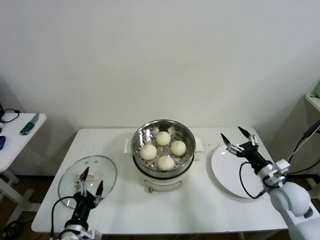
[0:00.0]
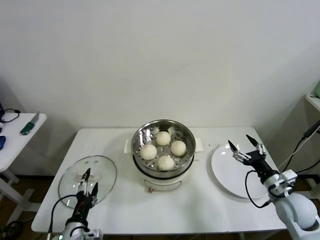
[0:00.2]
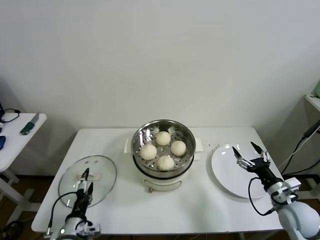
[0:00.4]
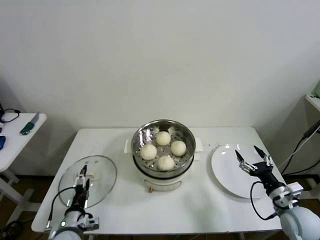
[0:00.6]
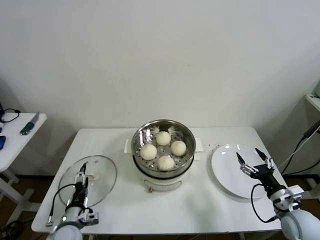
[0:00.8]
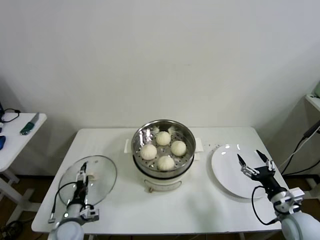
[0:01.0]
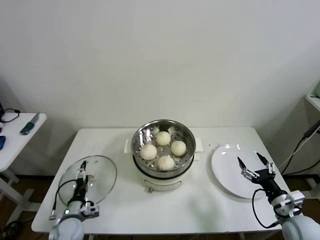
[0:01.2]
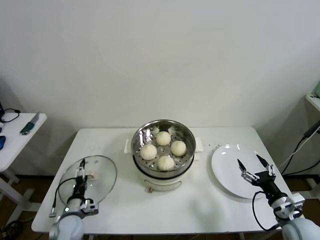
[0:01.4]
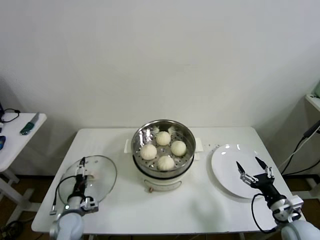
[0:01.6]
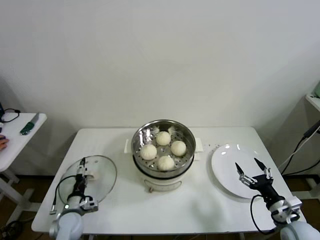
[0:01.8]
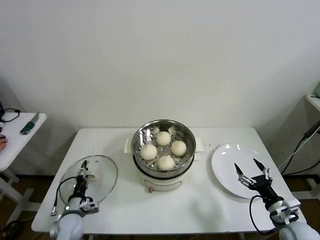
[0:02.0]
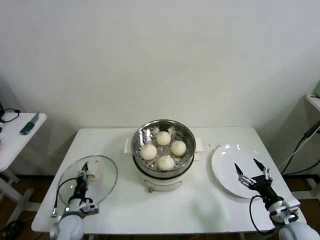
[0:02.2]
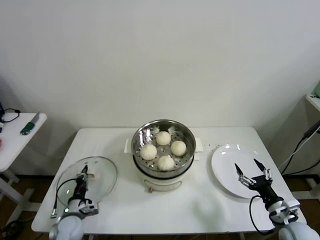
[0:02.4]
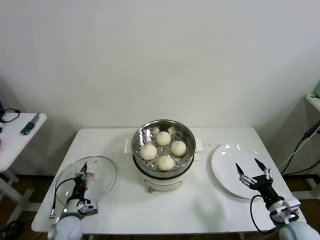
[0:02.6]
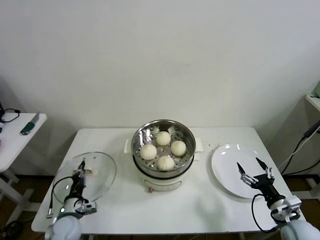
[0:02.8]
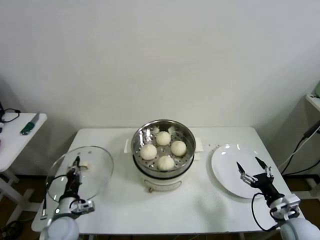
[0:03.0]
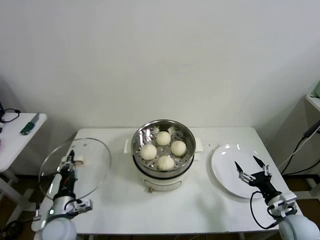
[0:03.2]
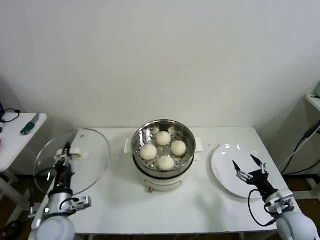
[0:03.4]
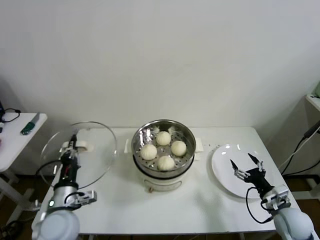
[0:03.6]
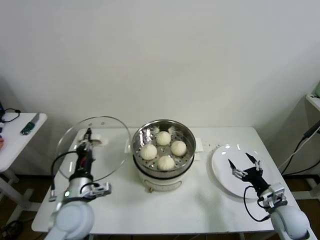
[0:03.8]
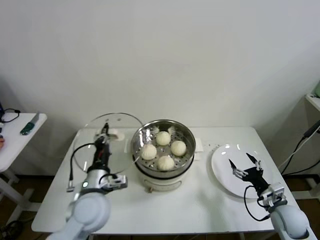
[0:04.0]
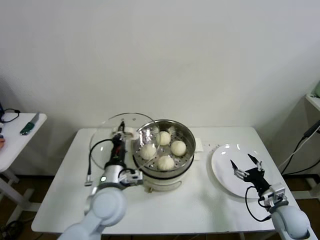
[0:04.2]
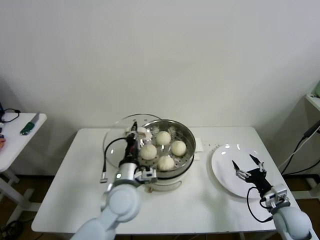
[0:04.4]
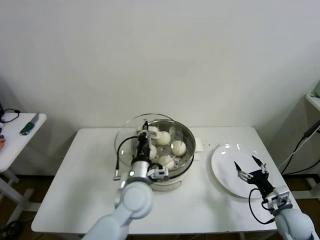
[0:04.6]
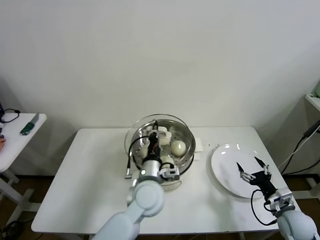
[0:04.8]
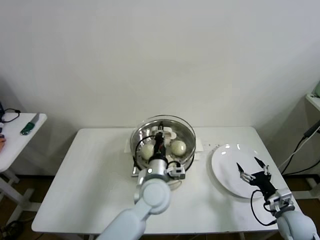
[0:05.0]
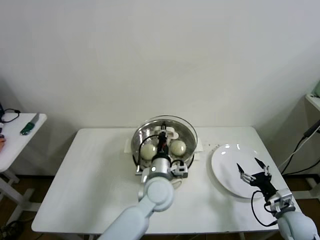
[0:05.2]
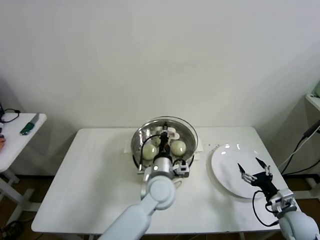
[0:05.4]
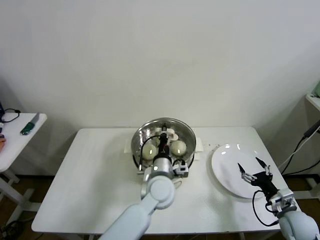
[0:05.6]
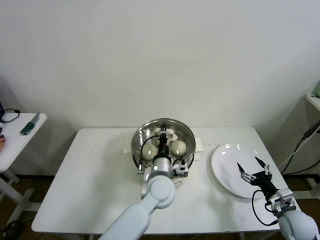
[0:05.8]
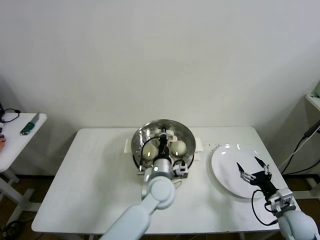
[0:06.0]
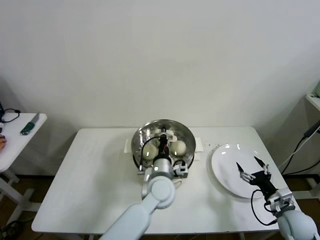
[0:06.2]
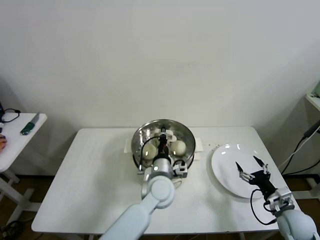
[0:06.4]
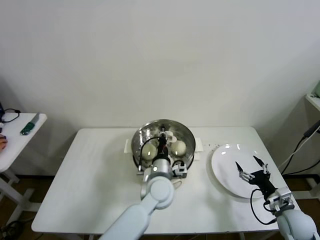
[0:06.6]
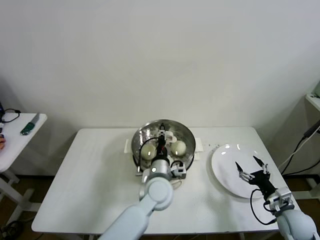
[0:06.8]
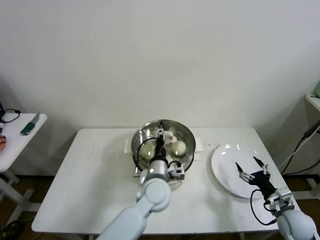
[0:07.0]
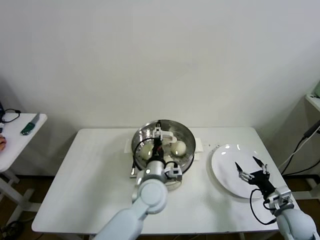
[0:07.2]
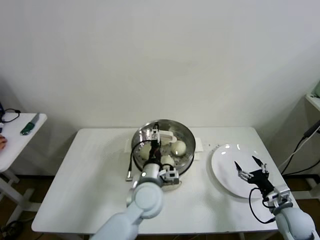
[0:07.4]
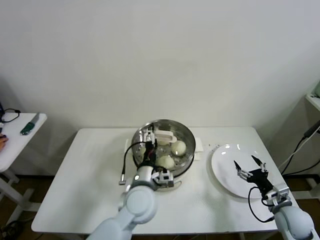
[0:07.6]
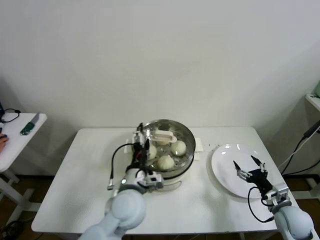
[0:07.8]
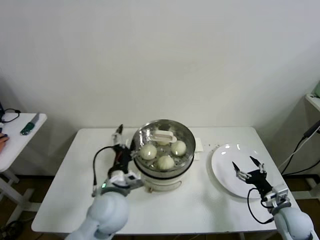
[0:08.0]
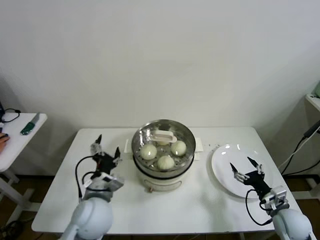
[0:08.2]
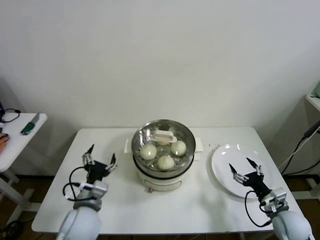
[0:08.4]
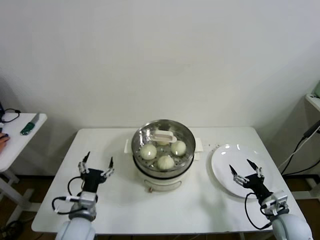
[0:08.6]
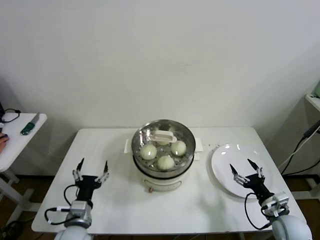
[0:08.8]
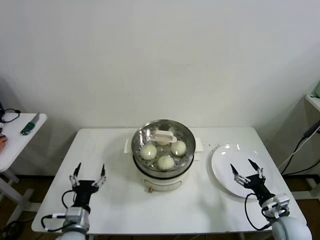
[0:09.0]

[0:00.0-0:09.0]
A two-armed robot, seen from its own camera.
Step, 0:00.0 to 0:02.2: Grasp the pot lid with left gripper.
Step, 0:02.6 to 0:06.4: Place the pot lid on the steamer with left gripper.
0:00.0 to 0:01.6: The right gripper travels backward and downward by some 10 cm. Meanwhile the left gripper travels forward, downward and to the left by roughly 20 cm.
0:01.6 to 0:03.0: The left gripper ends up some 5 cm from where it was, and closes up.
0:03.0 to 0:04.4: The left gripper goes approximately 25 cm to the right and upward.
0:04.4 to 0:06.0: The left gripper goes about 10 cm to the right.
0:06.0 to 0:07.6: The left gripper ends up approximately 5 cm from where it was, and opens.
0:07.6 to 0:09.0: The left gripper travels to the left, backward and downward by some 25 cm.

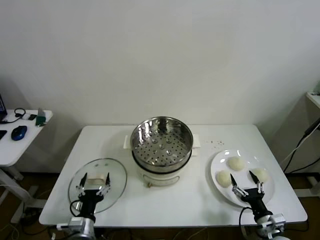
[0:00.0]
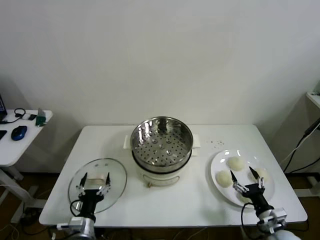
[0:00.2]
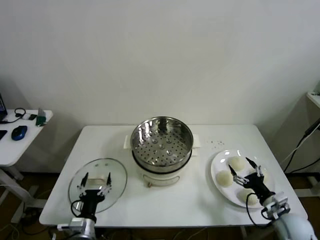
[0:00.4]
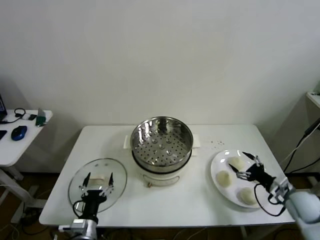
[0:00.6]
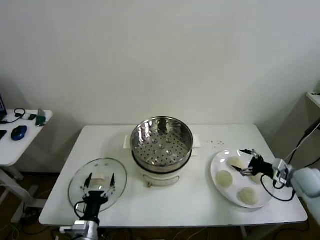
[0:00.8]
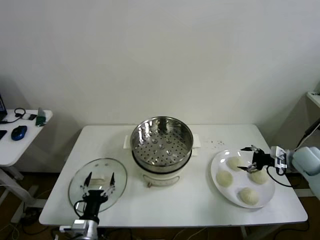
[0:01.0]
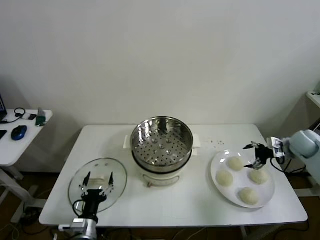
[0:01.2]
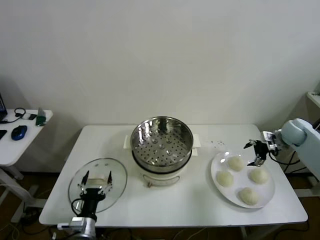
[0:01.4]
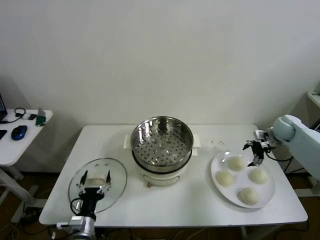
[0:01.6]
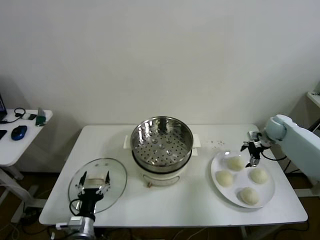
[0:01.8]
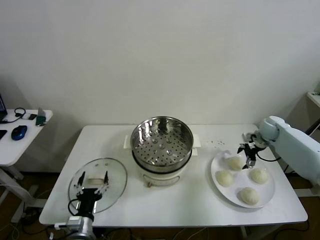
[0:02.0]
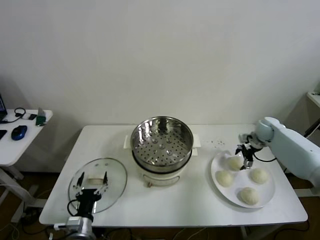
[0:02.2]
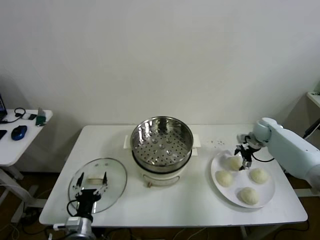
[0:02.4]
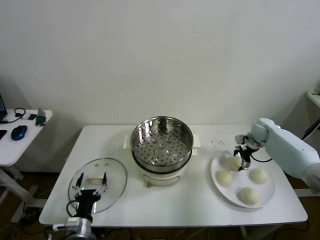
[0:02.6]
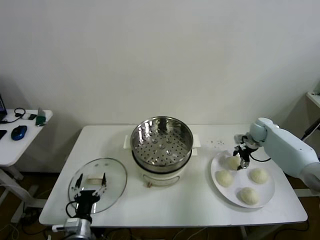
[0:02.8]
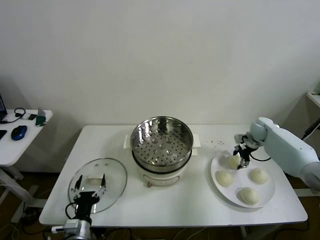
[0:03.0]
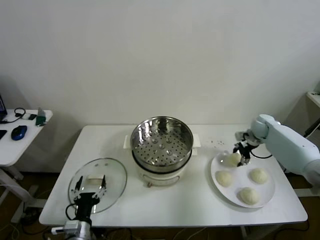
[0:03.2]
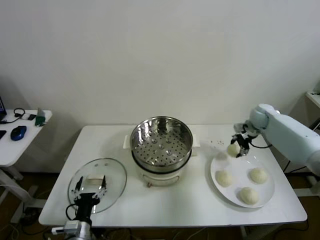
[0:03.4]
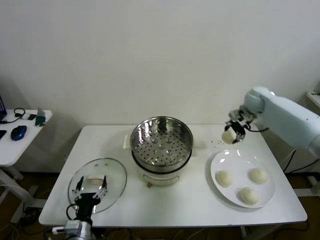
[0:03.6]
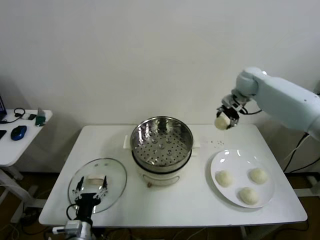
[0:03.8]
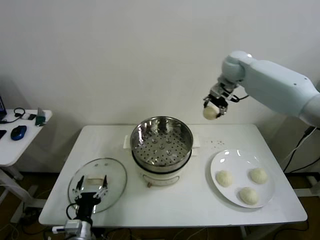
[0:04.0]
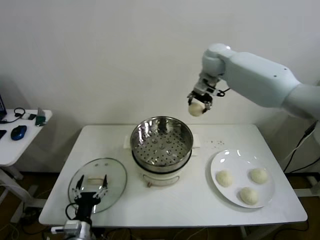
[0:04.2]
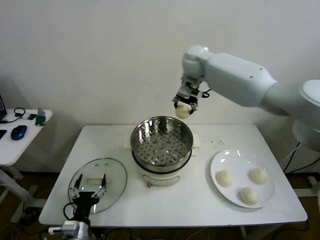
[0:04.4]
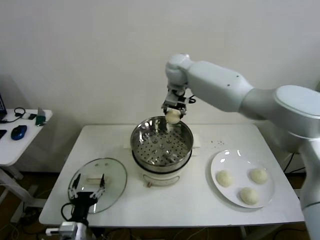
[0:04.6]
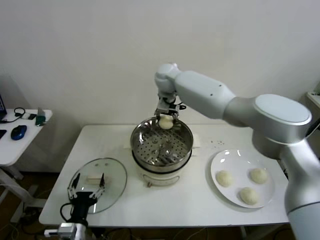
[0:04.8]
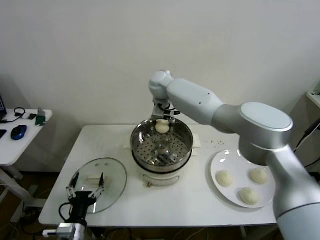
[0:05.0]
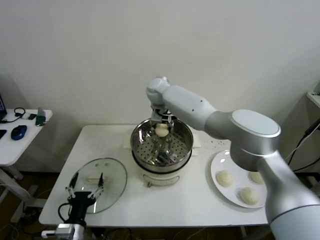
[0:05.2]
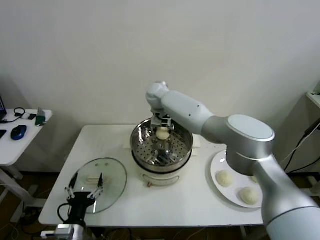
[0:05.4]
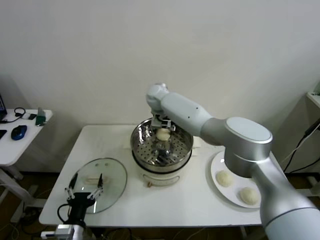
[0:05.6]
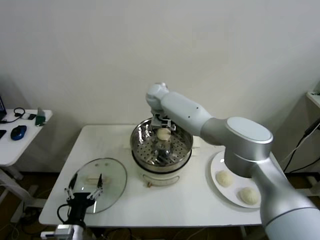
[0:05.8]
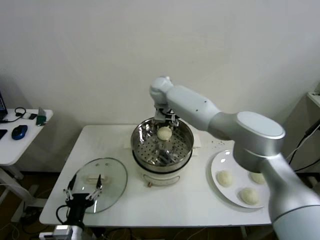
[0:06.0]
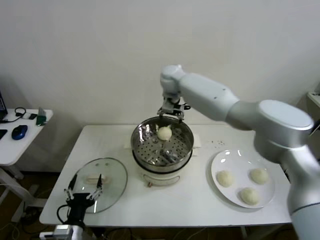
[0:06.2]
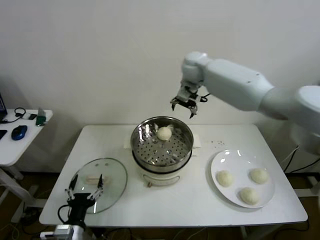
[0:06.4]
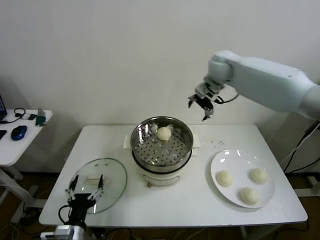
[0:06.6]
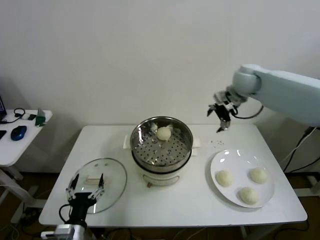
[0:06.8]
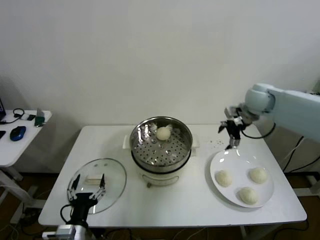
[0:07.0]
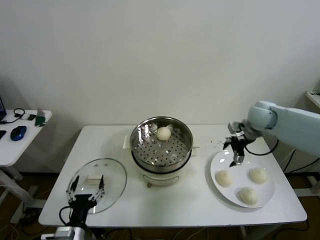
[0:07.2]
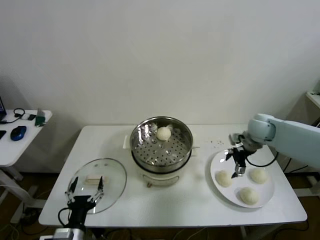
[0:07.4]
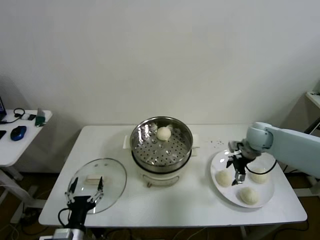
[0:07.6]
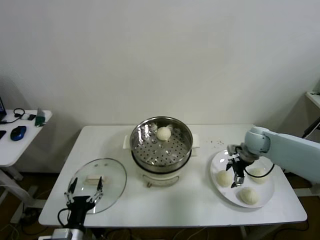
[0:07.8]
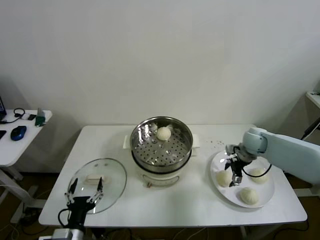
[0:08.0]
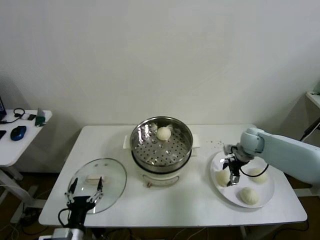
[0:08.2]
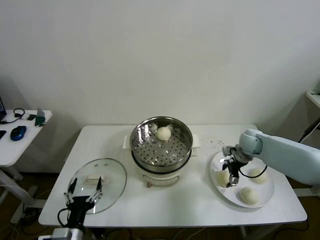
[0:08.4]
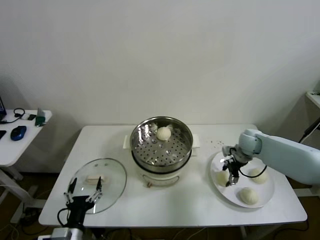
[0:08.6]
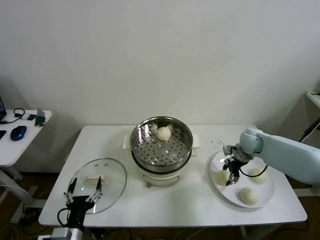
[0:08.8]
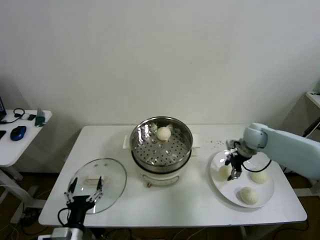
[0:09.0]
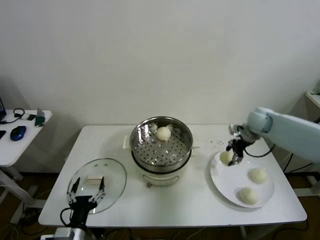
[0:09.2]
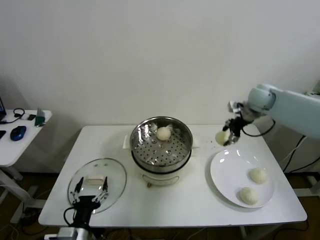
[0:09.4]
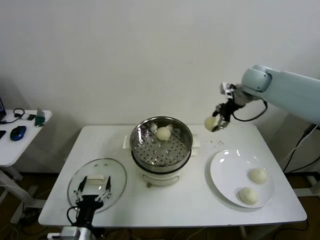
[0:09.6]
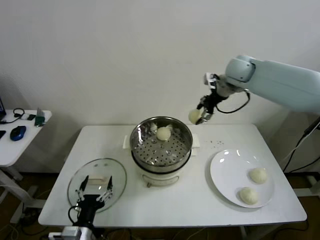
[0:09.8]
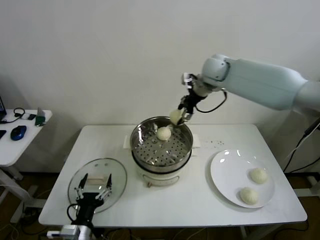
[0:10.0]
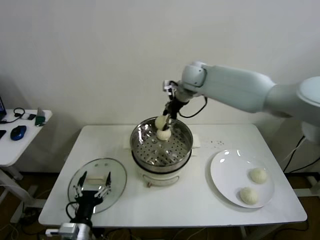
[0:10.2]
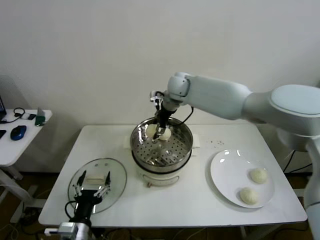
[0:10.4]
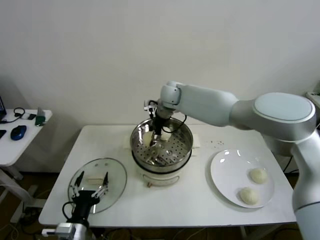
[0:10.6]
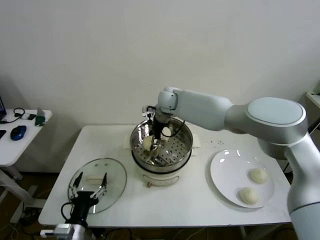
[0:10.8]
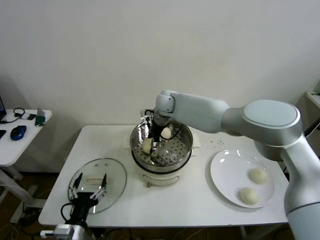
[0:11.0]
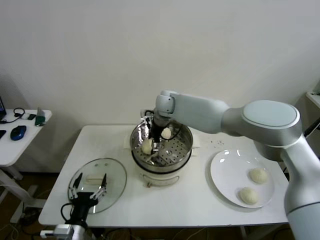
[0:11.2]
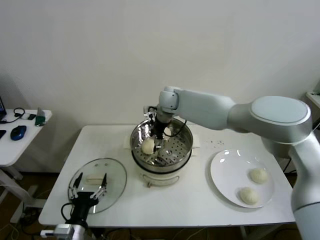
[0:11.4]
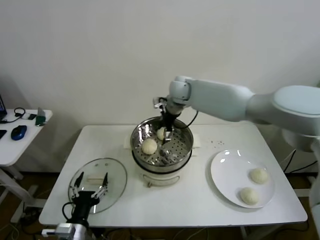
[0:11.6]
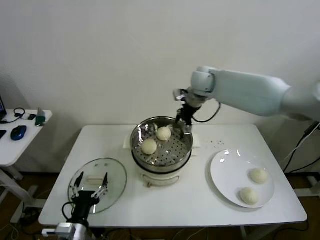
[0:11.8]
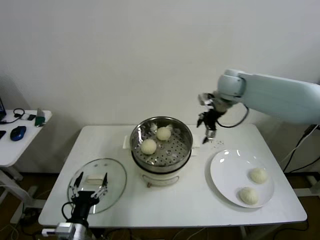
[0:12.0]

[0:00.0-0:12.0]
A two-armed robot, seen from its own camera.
Step, 0:00.0 to 0:02.8: Grasp the baozi in the plate with right gripper.
Step, 0:03.0 to 0:05.4: Place the baozi on the steamer with right gripper.
Step, 0:05.6 to 0:08.6: Grasp the baozi in the plate with right gripper.
Step, 0:08.8 to 0:11.0: Place the baozi on the steamer with right gripper.
0:01.6 to 0:03.0: The right gripper changes place by about 5 cm, and closes up.
0:03.0 to 0:04.4: The right gripper moves to the left and upward, some 40 cm.
0:04.4 to 0:06.0: The right gripper goes some 10 cm downward and to the left, and opens its fingers.
0:06.0 to 0:07.6: The right gripper moves to the right and downward, some 35 cm.
0:07.6 to 0:09.0: The right gripper closes up.
0:09.0 to 0:10.4: The right gripper shifts about 35 cm to the left and upward.
0:10.4 to 0:12.0: The right gripper is displaced to the right by roughly 20 cm, and opens up.

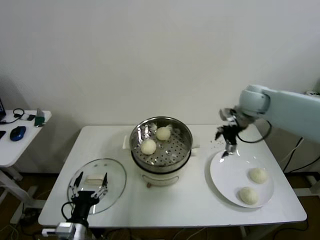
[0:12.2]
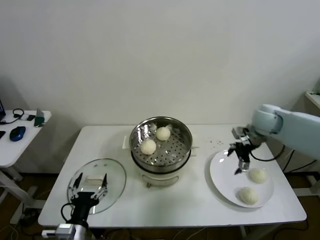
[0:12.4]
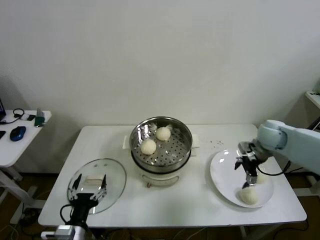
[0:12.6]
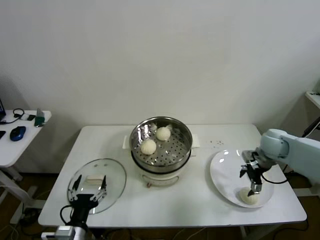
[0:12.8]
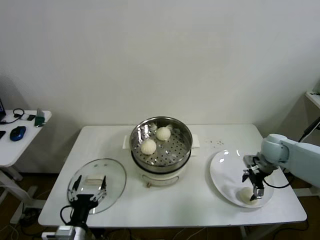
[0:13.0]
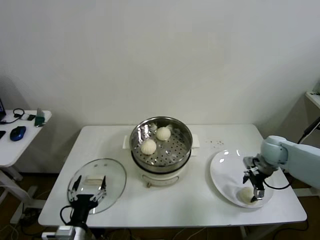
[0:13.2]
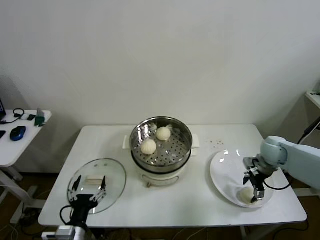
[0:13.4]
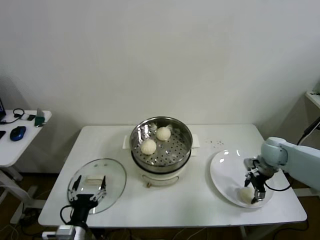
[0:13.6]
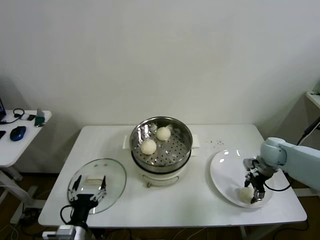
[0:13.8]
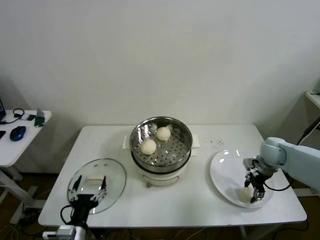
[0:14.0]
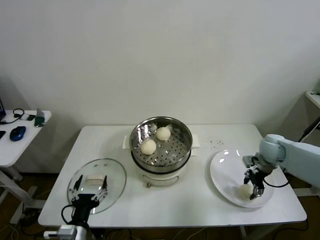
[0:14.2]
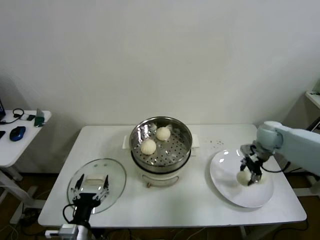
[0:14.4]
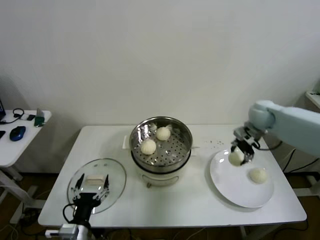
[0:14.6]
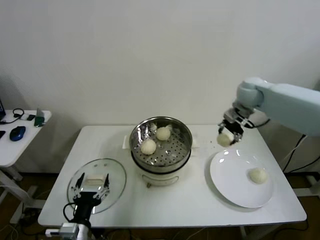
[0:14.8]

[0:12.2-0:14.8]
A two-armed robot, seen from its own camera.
Step, 0:12.2 to 0:14.0: Grasp the baozi in the plate with right gripper.
0:12.2 to 0:13.4: The right gripper travels downward, to the right and backward by about 20 cm.
0:13.4 to 0:14.8: The right gripper heads upward, to the left and forward, covering roughly 25 cm, and closes.
